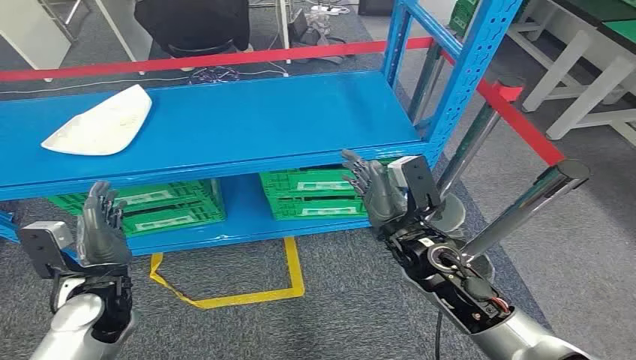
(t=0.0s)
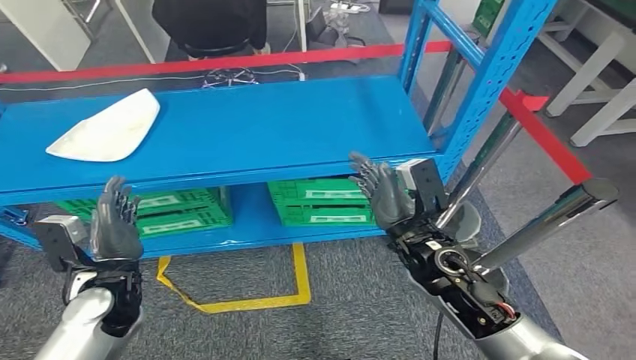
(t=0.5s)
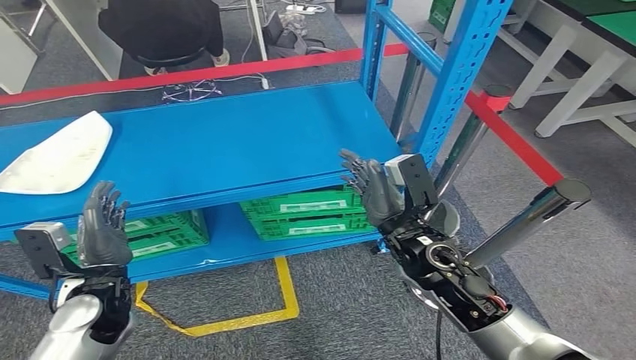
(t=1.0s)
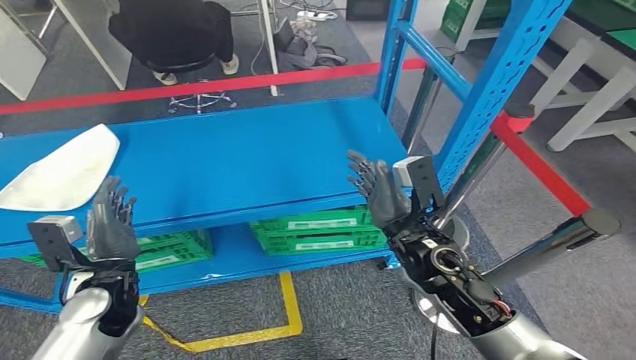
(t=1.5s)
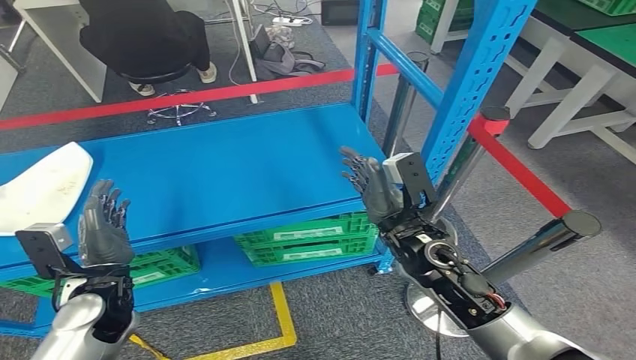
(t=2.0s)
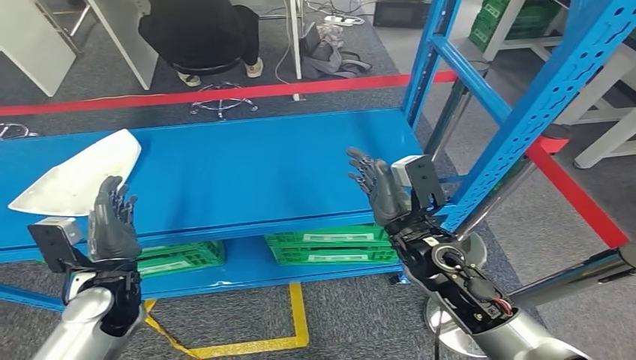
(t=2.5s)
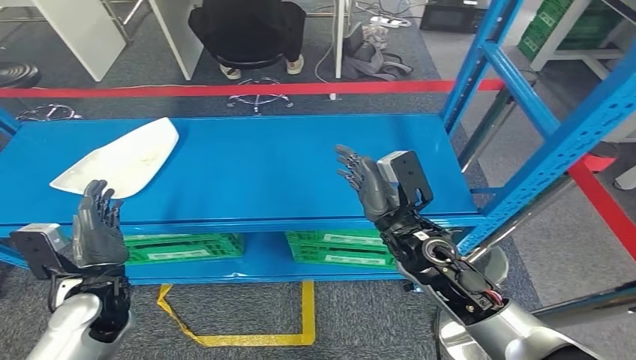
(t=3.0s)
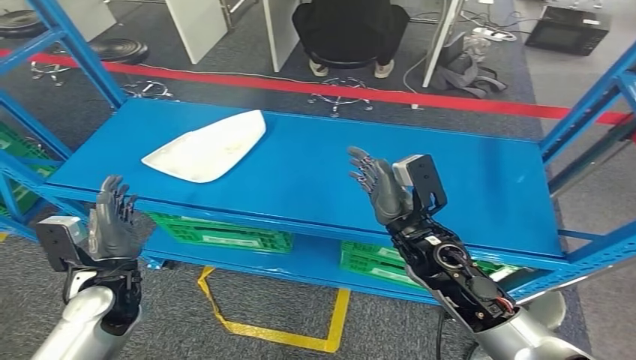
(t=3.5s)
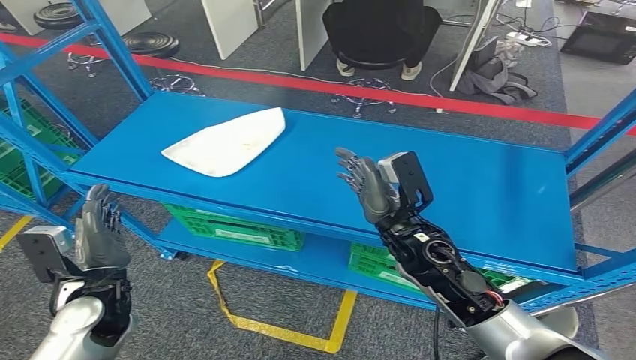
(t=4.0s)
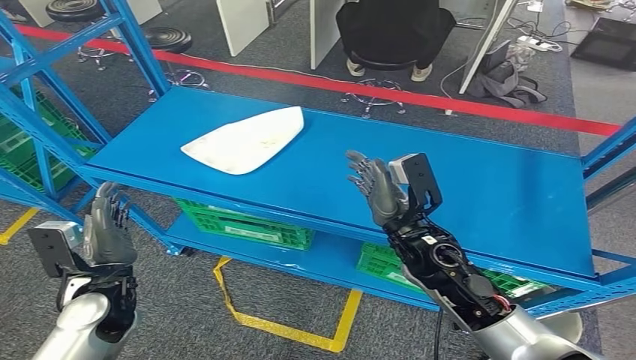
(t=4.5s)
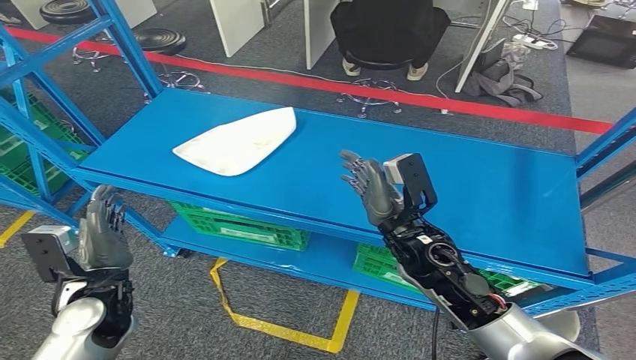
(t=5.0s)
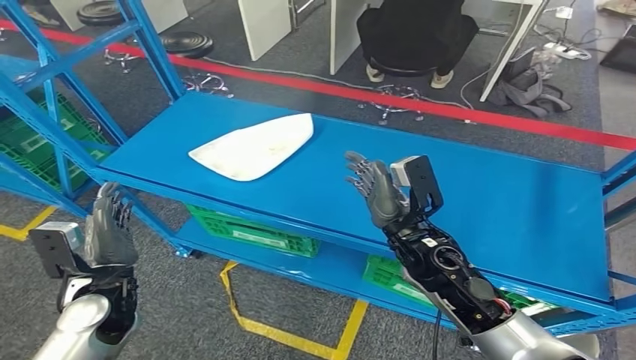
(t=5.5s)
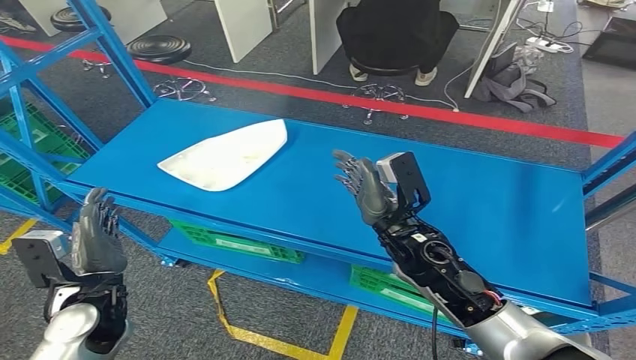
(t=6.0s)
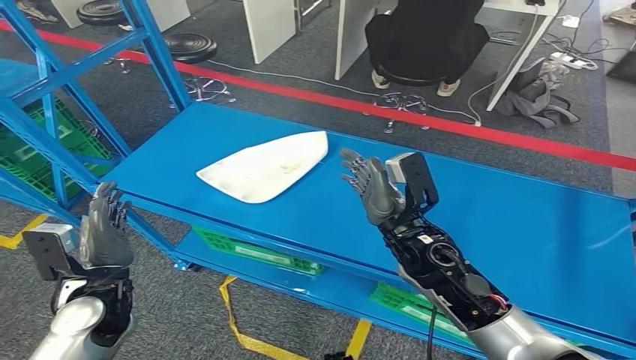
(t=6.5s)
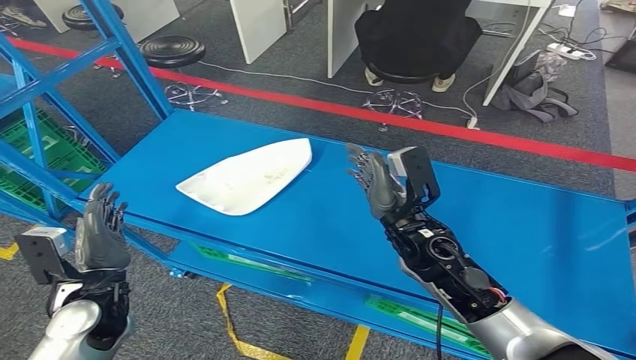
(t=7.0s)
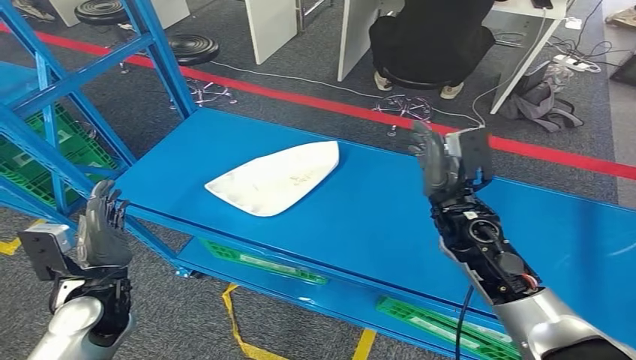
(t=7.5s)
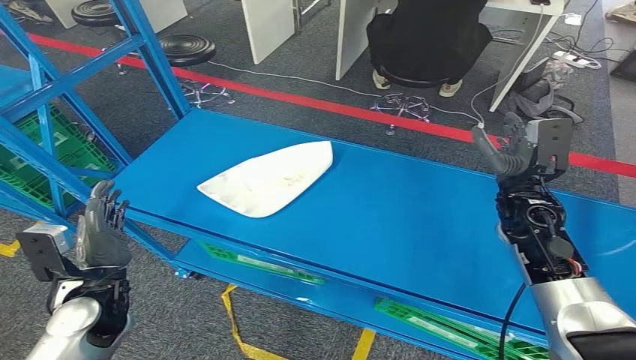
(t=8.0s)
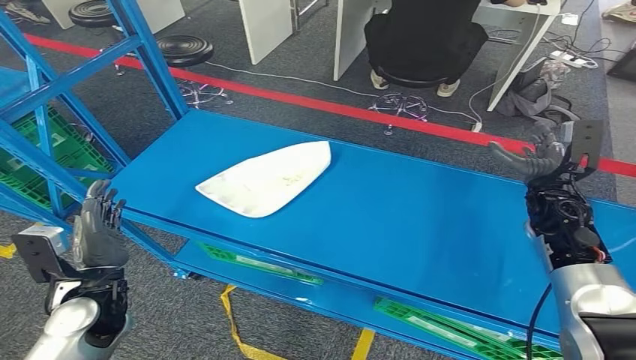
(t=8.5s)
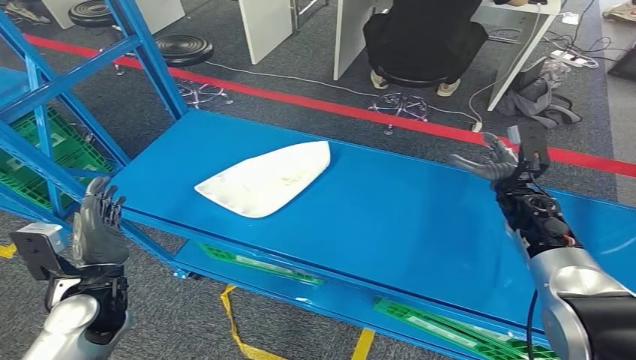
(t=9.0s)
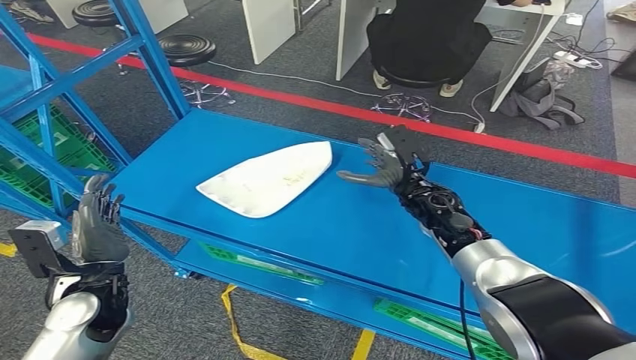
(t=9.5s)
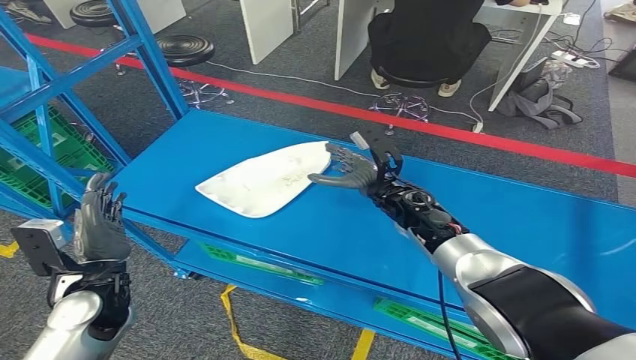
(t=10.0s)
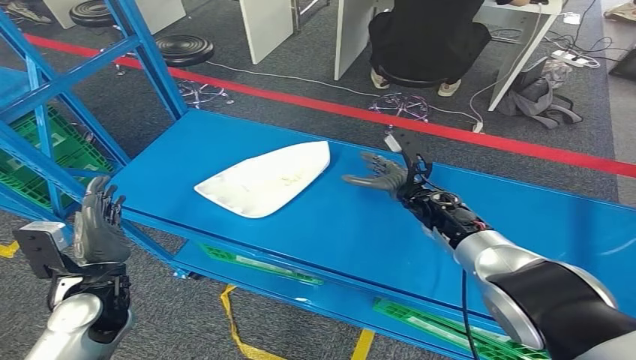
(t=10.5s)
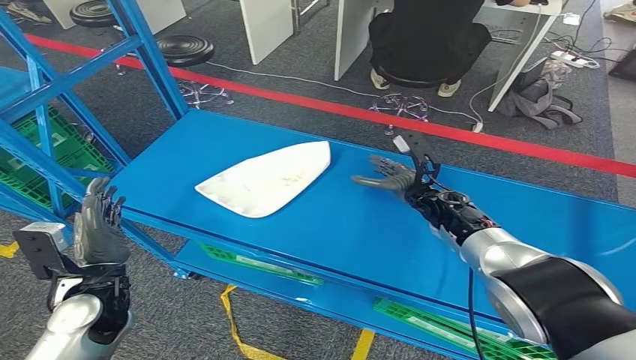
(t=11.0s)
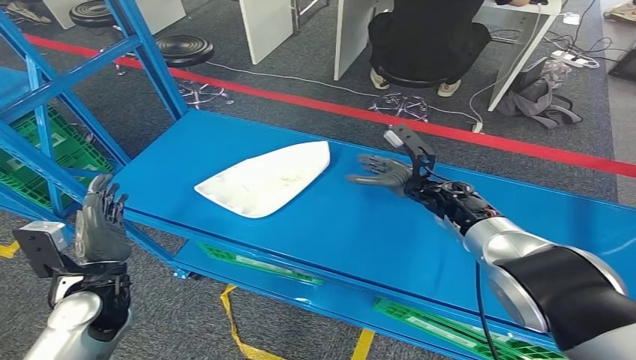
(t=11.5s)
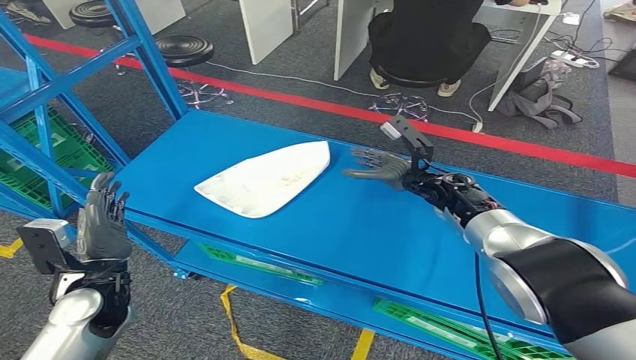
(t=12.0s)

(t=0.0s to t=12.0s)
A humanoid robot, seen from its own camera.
t=8.0s - t=10.0s: The right hand travels to the left and forward by approximately 15 cm.
t=10.0s - t=12.0s: The right hand is displaced to the right by some 10 cm.

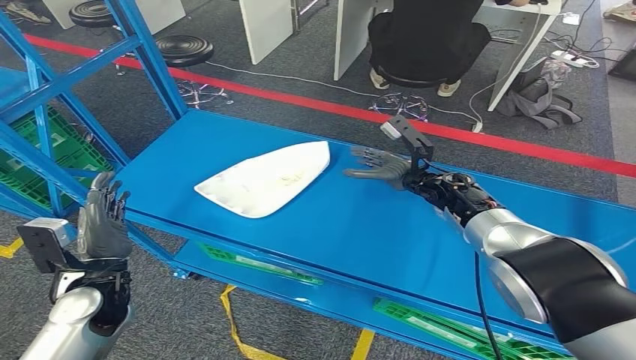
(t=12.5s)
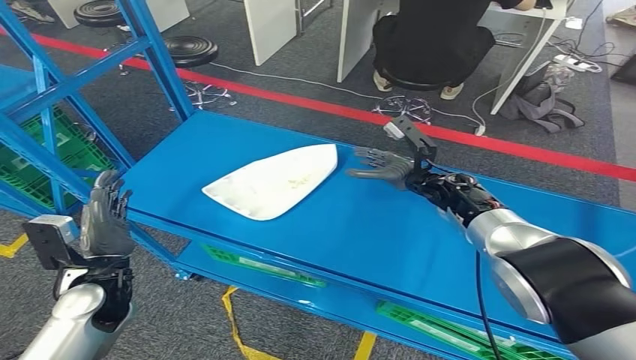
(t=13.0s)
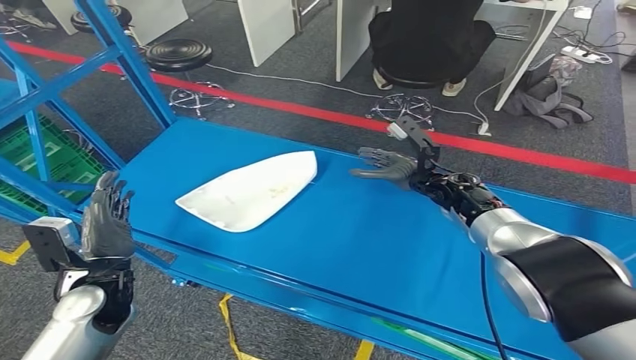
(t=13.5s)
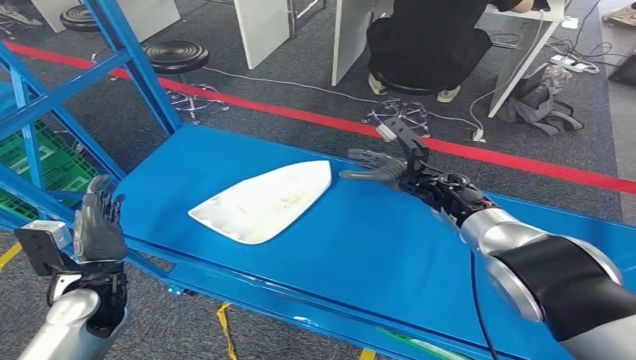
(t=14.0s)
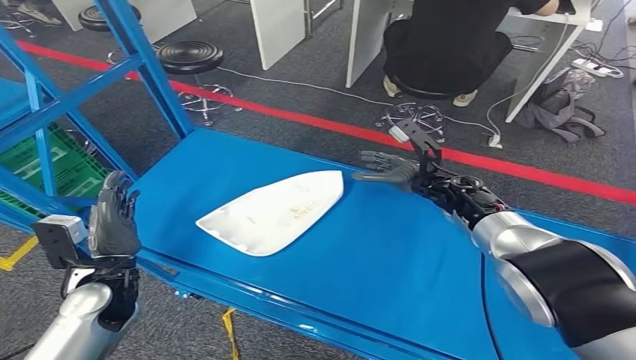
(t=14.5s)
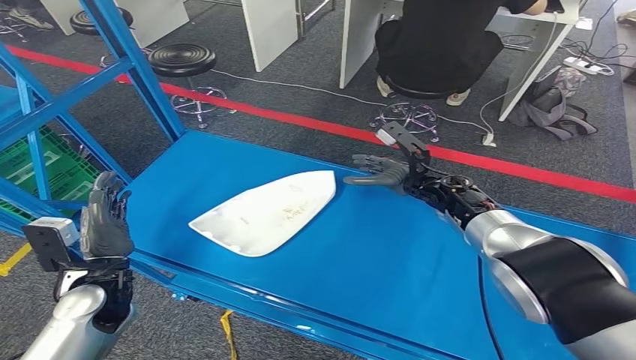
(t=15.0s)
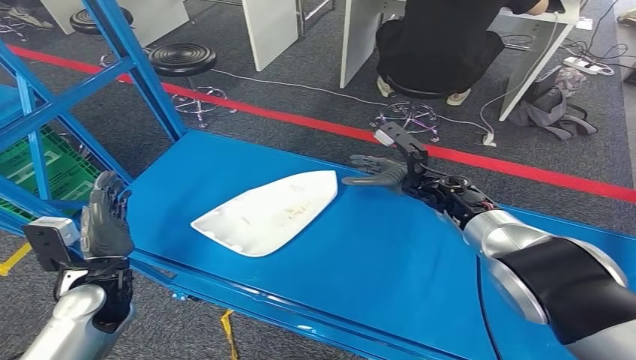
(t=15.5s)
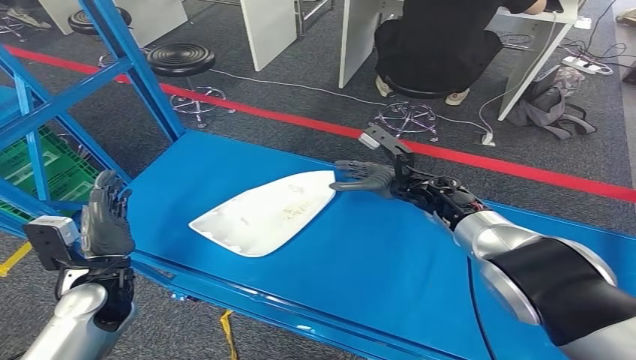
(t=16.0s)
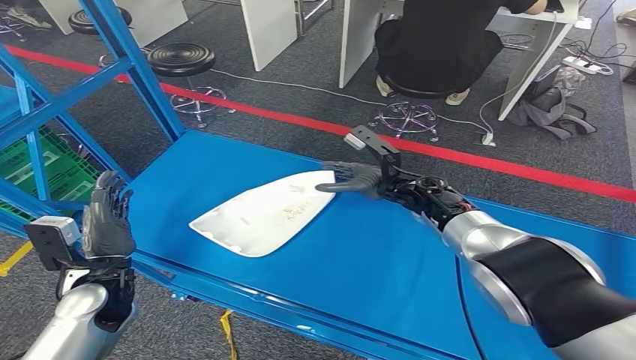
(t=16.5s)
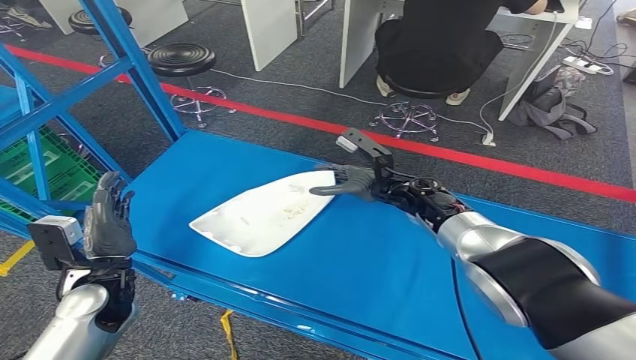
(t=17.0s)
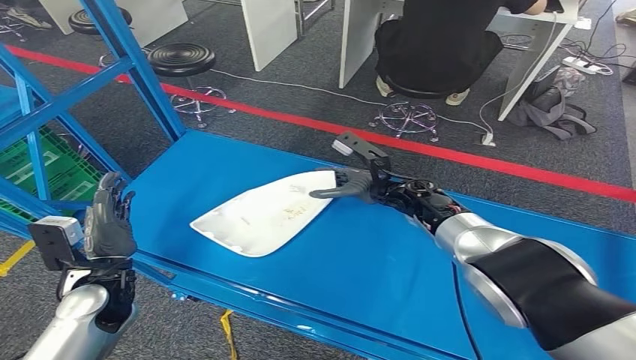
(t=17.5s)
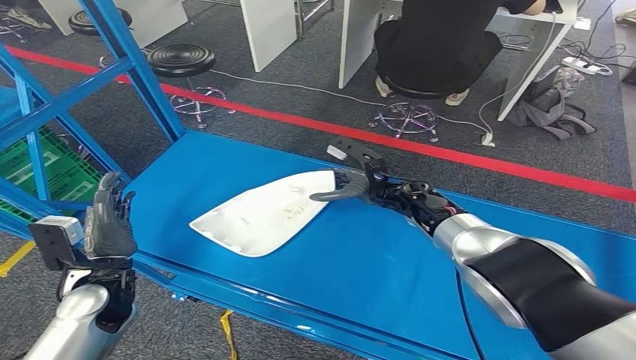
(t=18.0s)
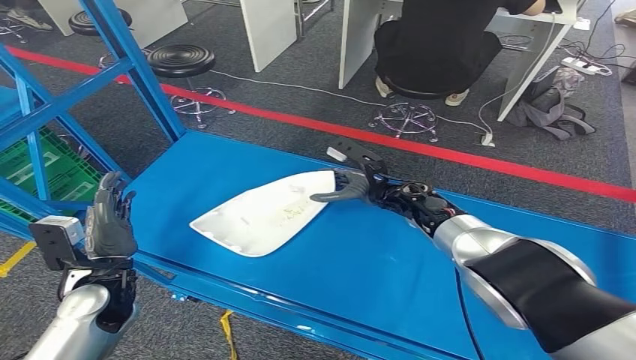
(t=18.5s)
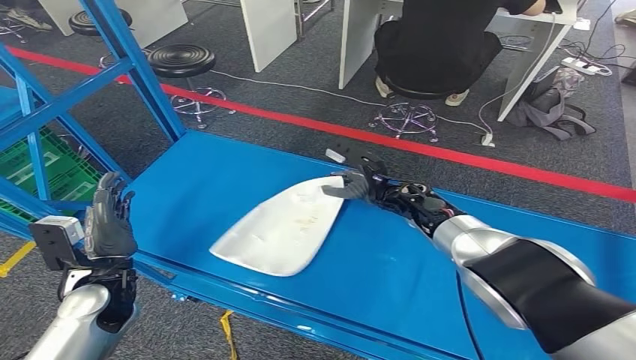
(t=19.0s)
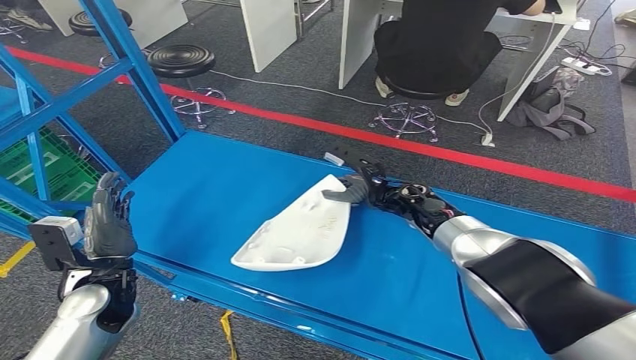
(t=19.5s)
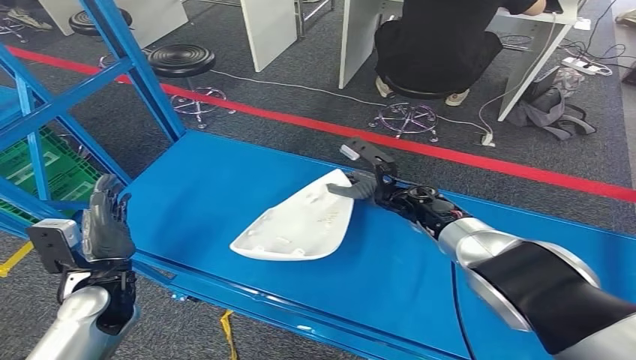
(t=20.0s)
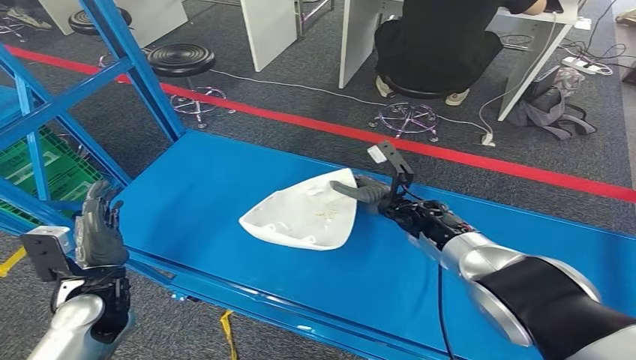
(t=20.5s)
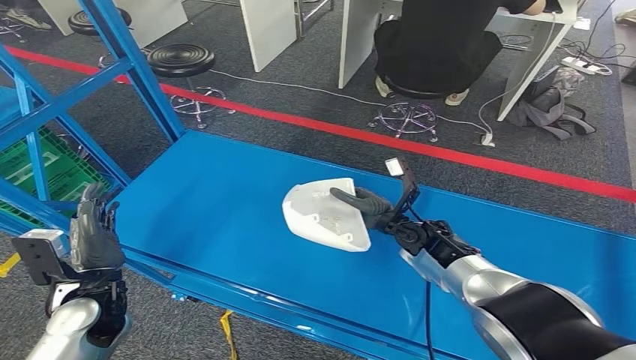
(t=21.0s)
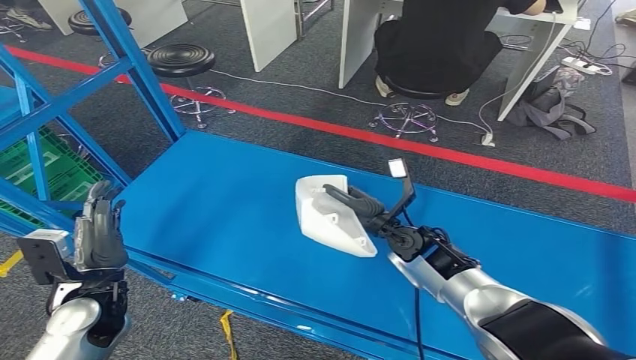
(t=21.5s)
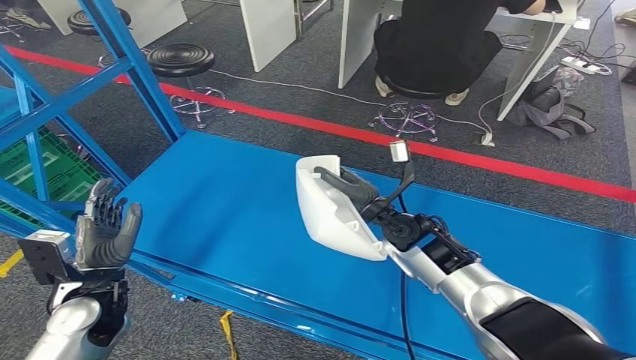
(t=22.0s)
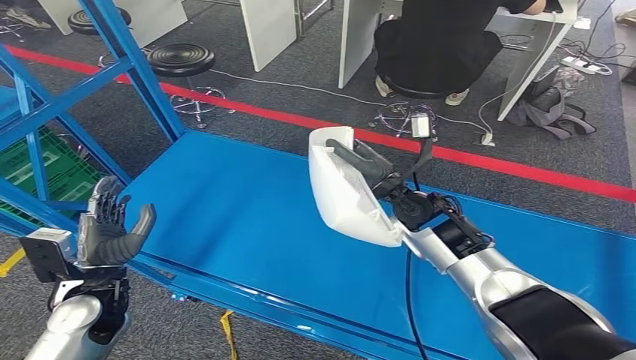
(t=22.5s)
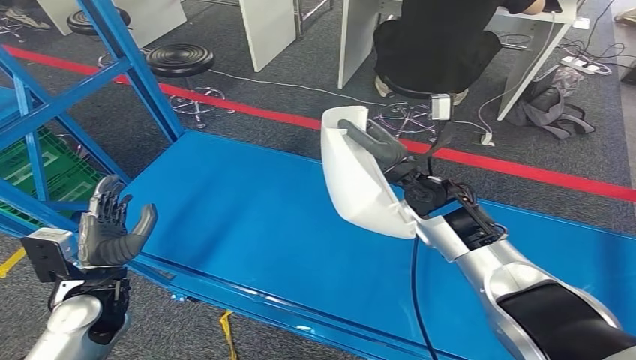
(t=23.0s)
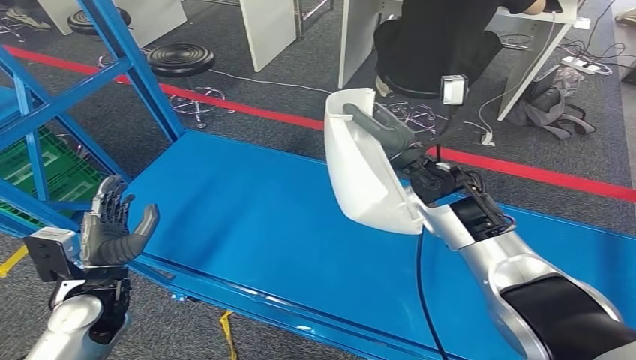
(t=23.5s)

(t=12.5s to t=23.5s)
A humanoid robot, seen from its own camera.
Step, t=12.5s - t=22.0s: Pick up the small component from the shelf.
t=16.0s - t=20.0s: The hands make only small movements.
t=20.0s - t=21.5s: The right hand heads backward, covering some 5 cm.
t=21.5s - t=23.5s: The right hand heads upward, covering about 15 cm.
